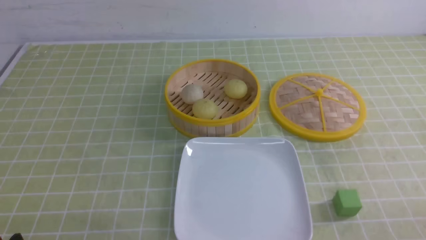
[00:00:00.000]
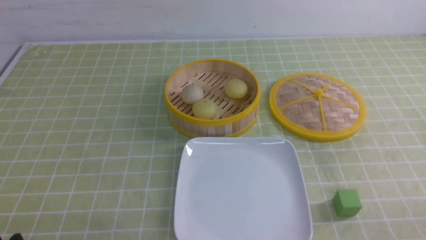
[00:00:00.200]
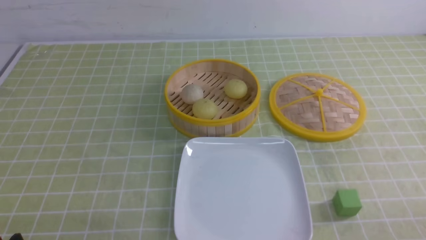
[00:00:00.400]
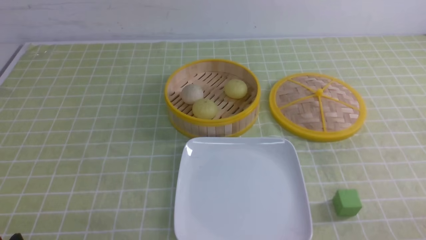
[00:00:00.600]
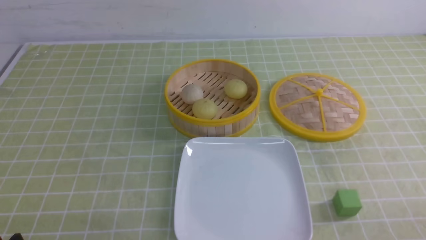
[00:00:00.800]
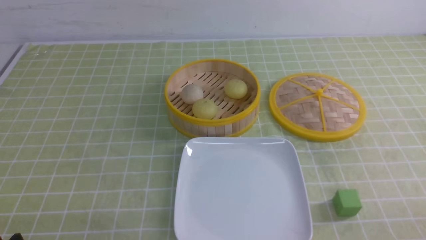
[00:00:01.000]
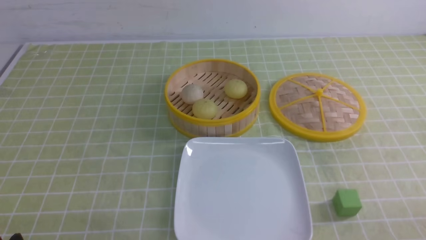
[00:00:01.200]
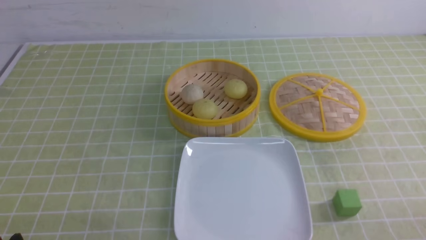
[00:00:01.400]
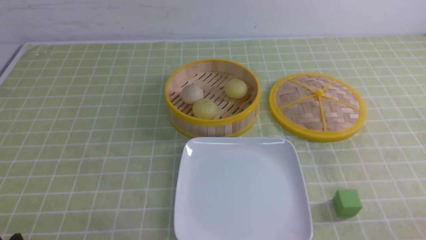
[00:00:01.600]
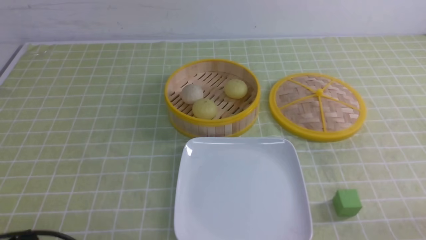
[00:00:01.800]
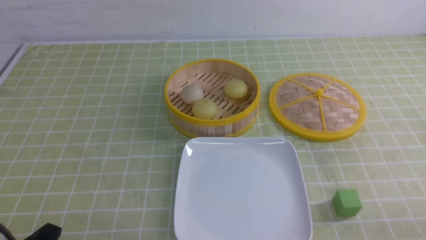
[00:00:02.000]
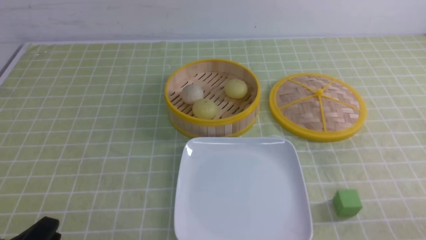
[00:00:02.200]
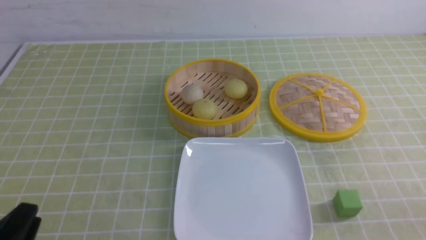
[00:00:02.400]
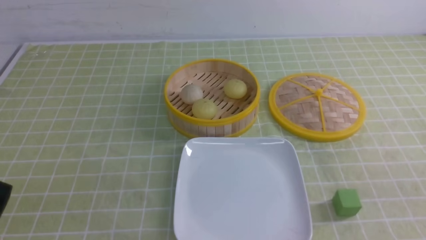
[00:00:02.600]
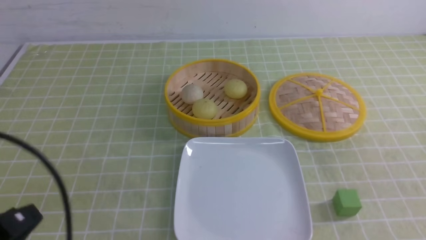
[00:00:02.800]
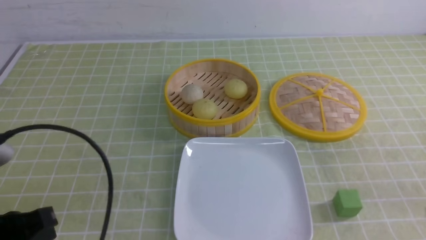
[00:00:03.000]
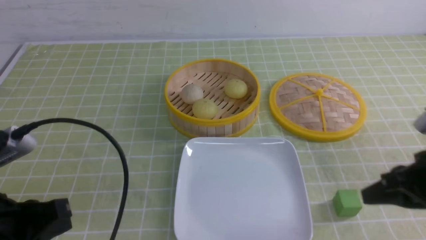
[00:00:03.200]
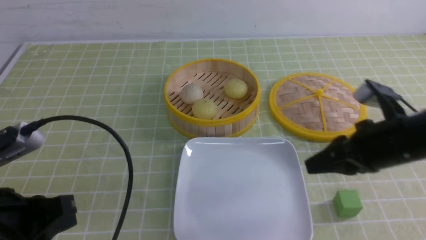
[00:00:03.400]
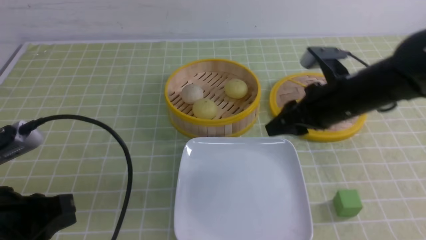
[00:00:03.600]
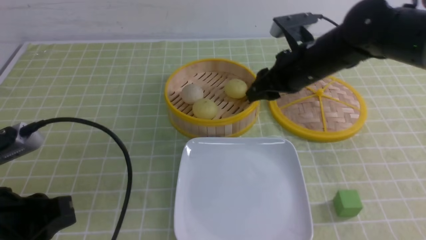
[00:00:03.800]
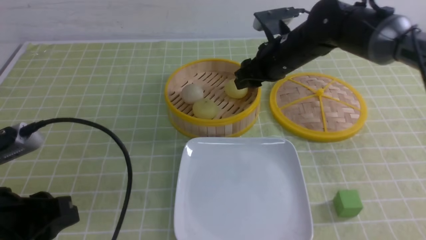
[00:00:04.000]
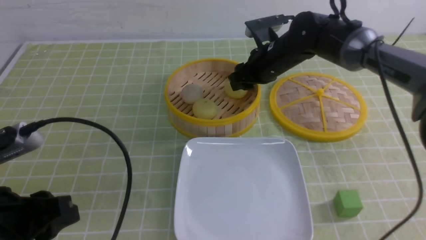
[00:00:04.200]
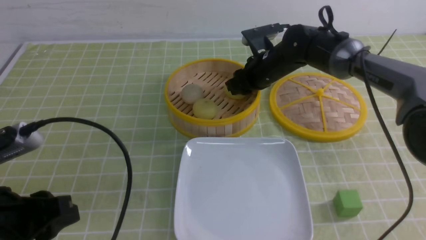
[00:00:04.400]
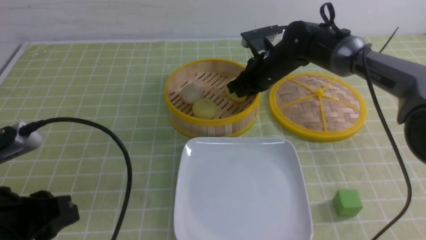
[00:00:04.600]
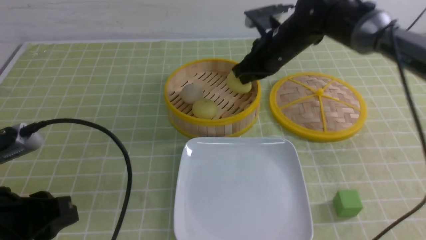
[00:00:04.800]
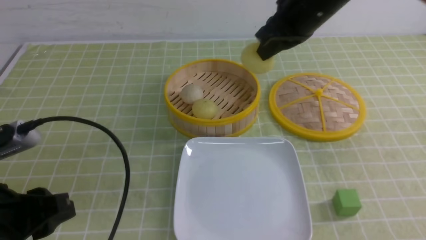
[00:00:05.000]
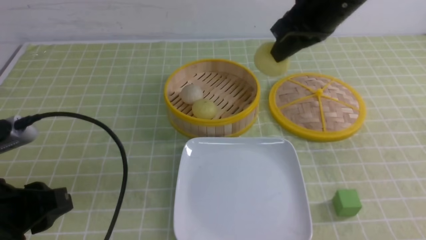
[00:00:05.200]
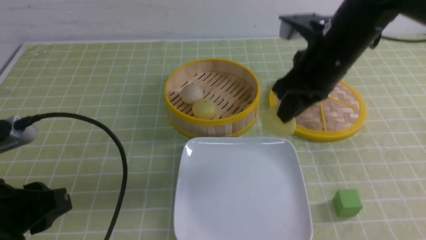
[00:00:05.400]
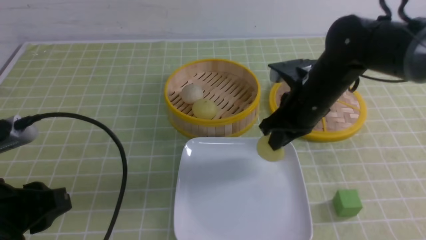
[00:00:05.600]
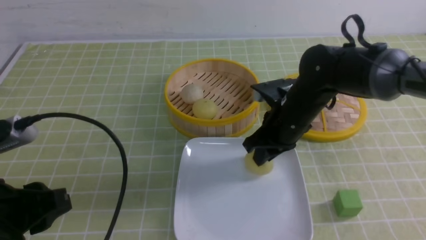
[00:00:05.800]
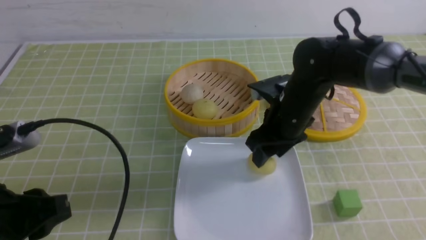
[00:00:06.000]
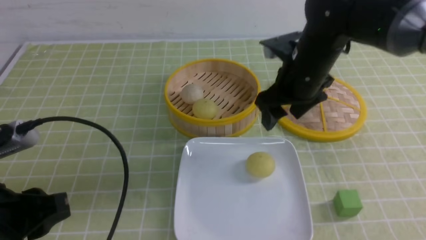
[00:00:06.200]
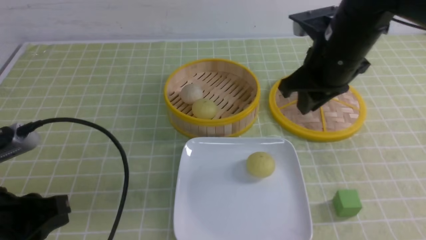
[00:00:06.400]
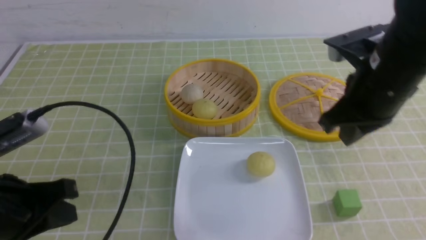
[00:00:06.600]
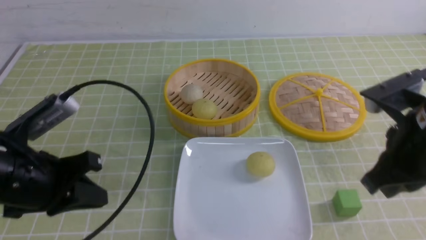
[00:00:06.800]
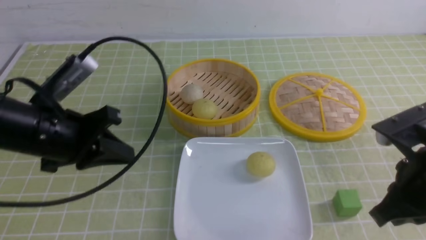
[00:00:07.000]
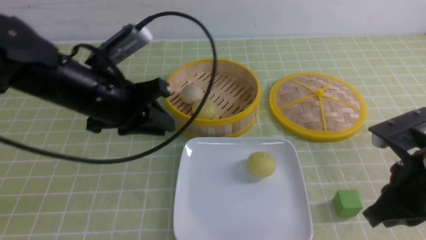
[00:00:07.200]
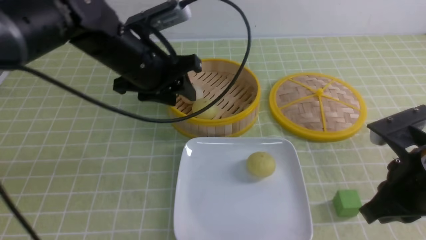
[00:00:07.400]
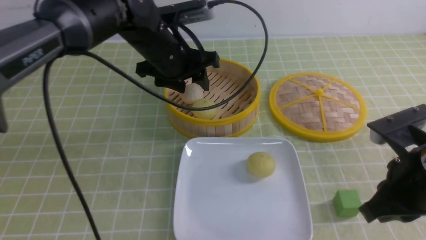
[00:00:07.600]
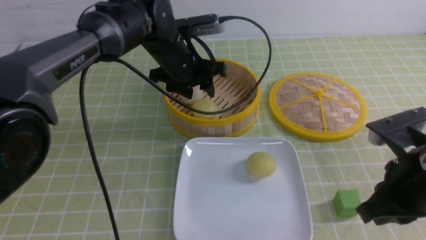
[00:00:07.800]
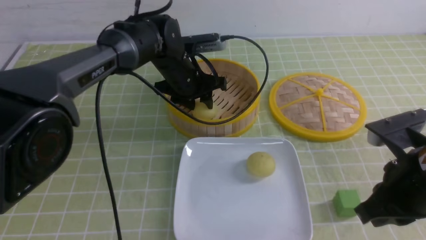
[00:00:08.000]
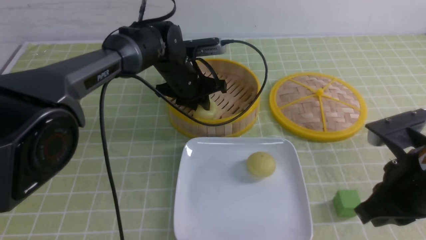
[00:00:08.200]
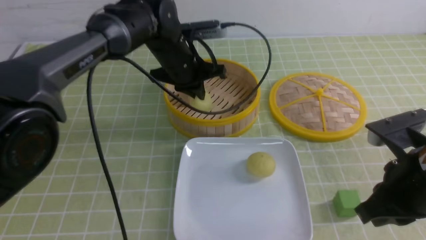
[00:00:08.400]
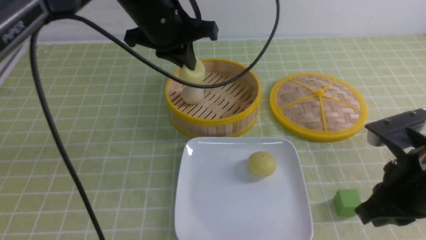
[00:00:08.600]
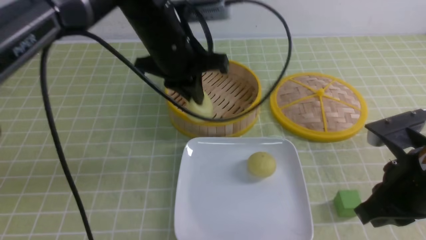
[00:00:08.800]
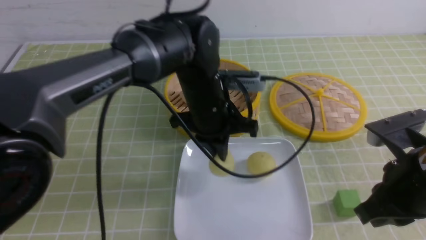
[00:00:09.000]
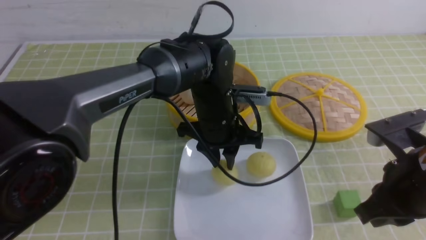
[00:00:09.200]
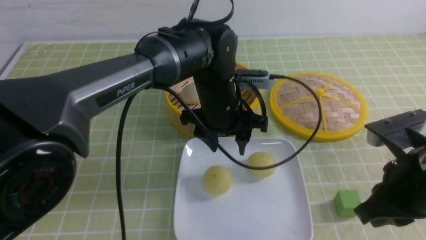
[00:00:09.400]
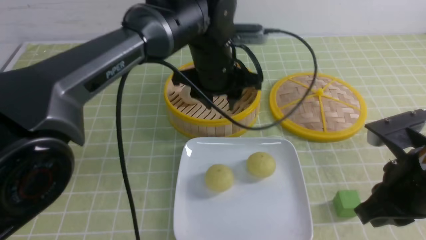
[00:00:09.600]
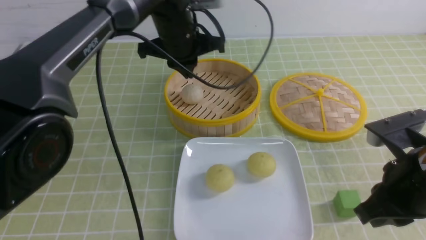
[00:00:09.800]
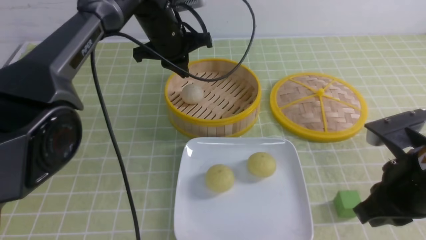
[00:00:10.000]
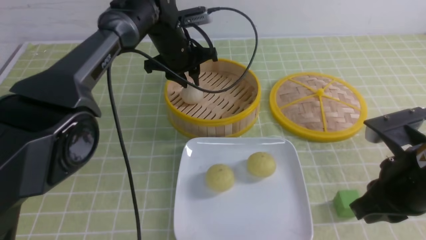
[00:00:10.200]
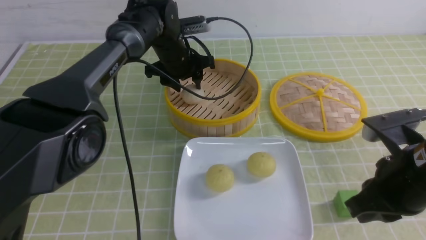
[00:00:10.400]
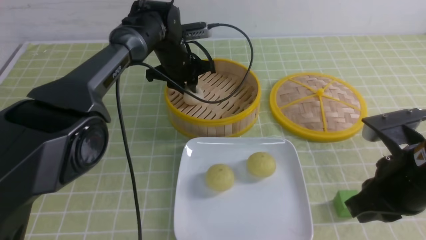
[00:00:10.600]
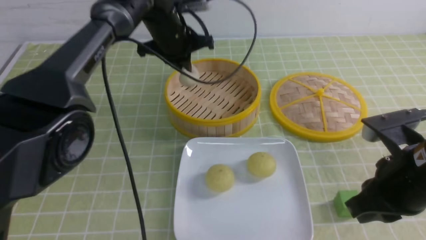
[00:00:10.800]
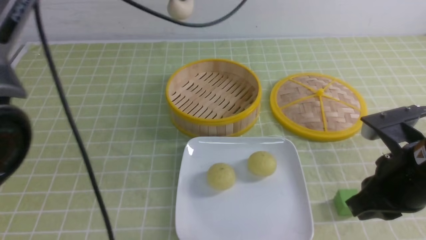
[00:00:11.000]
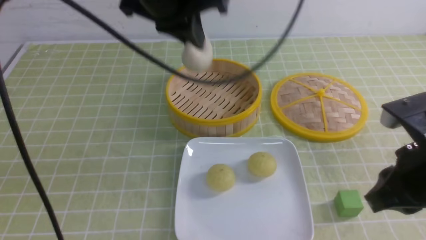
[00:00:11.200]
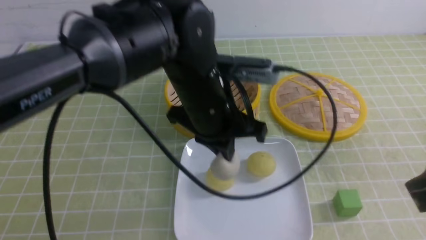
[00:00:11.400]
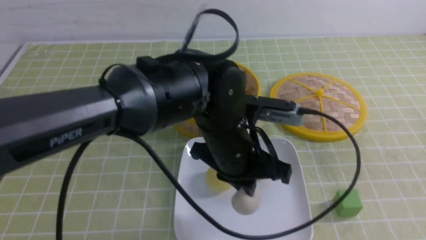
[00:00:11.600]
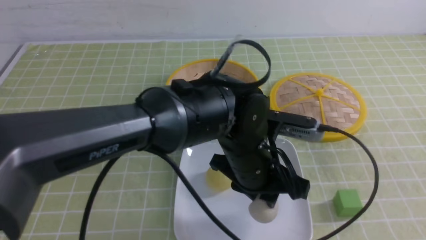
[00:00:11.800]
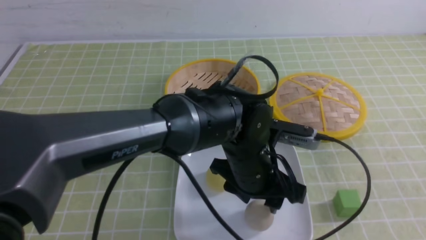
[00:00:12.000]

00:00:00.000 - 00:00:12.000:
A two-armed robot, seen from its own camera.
Step, 00:00:00.000 - 00:00:04.600: use the right arm to grab the steamed stuffed bun that is closest to it.
Step, 00:00:04.800 - 00:00:06.000: use the right arm to put the steamed stuffed bun into the plate.
Step, 00:00:06.200 - 00:00:08.200: use the left arm to grab the steamed stuffed bun that is closest to it.
Step, 00:00:08.400 - 00:00:09.200: use the left arm to put the steamed stuffed bun into the plate.
Step, 00:00:09.400 - 00:00:10.600: use the left arm to grab the steamed stuffed bun that is closest to it.
00:00:01.600 - 00:00:03.000: The left gripper moves upward, approximately 10 cm, and closes up.
00:00:03.000 - 00:00:04.400: The left gripper opens, while the right gripper is displaced forward and to the left by about 40 cm, and opens its fingers.
00:00:04.400 - 00:00:06.000: The right gripper is displaced backward by about 15 cm, goes upward and returns, roughly 15 cm each way, and opens its fingers.
00:00:06.000 - 00:00:07.600: The left gripper moves forward and to the right, about 30 cm, and closes, then reopens. The right gripper goes approximately 20 cm backward and to the right, and closes up.
00:00:07.600 - 00:00:09.000: The left gripper swings up and down, about 10 cm each way, with 2 reversals, and closes up.
00:00:09.000 - 00:00:10.400: The left gripper travels forward by approximately 15 cm, and opens.
00:00:10.400 - 00:00:12.000: The right gripper travels backward, upward and to the right by some 20 cm, while the left gripper shifts roughly 25 cm backward and to the right, and closes, then opens again.

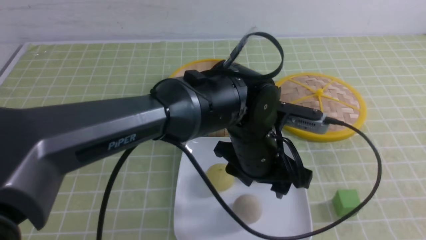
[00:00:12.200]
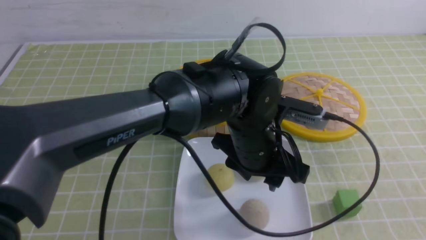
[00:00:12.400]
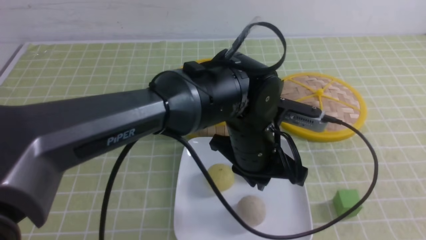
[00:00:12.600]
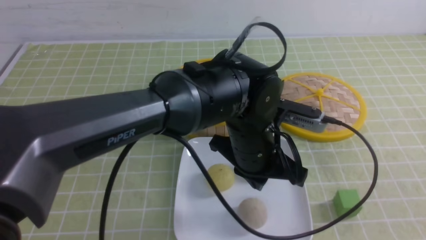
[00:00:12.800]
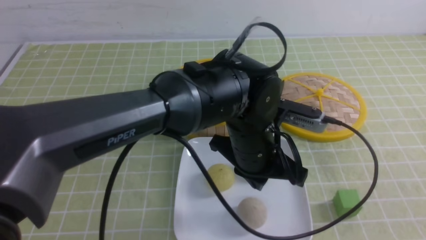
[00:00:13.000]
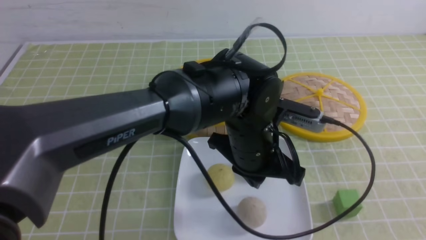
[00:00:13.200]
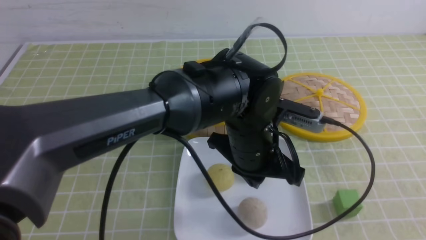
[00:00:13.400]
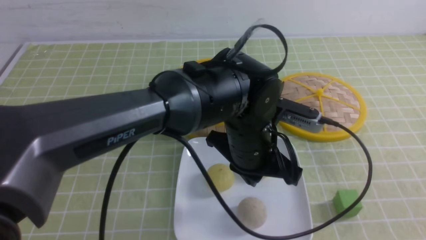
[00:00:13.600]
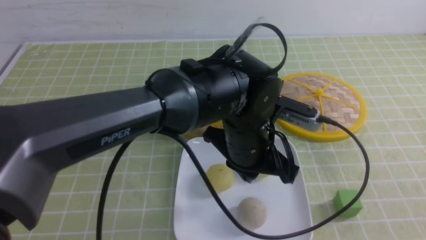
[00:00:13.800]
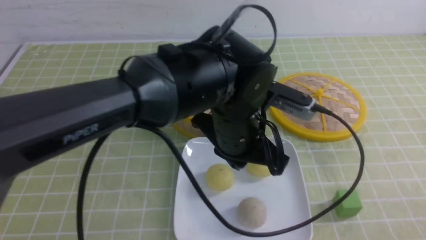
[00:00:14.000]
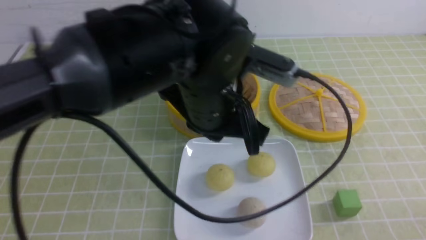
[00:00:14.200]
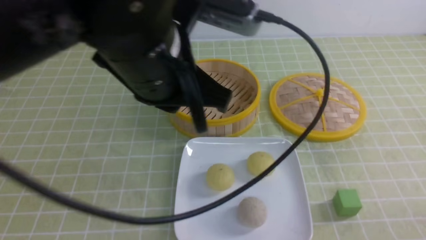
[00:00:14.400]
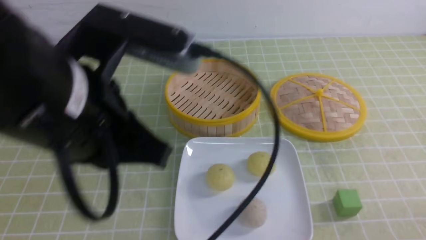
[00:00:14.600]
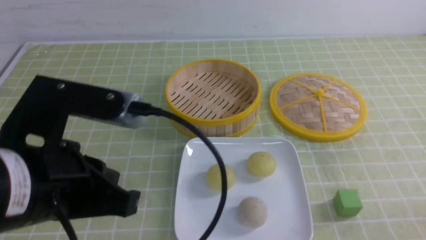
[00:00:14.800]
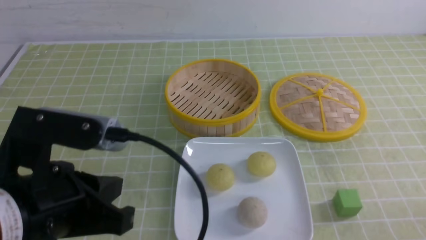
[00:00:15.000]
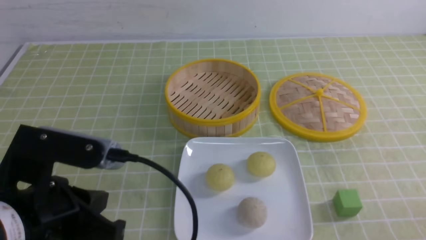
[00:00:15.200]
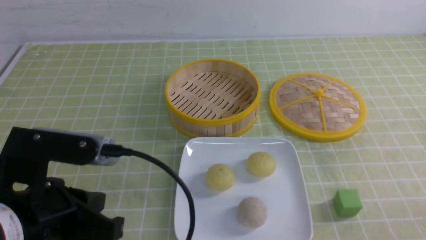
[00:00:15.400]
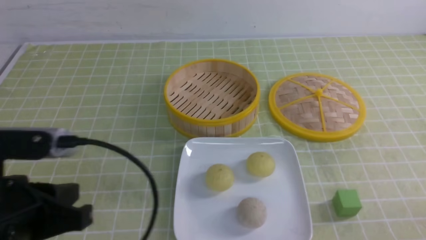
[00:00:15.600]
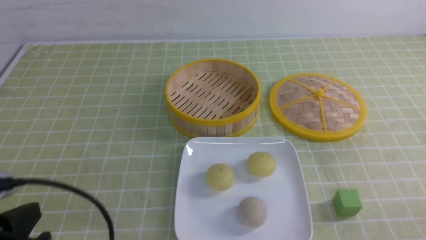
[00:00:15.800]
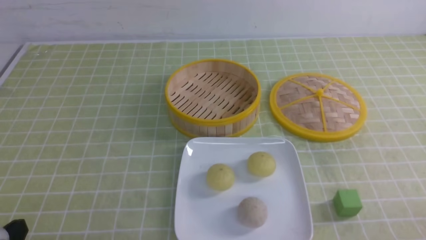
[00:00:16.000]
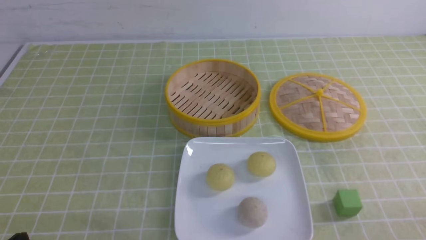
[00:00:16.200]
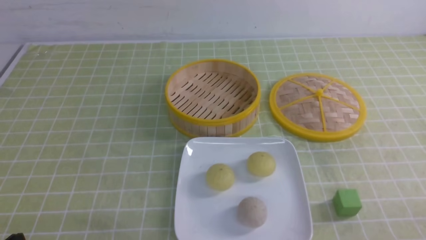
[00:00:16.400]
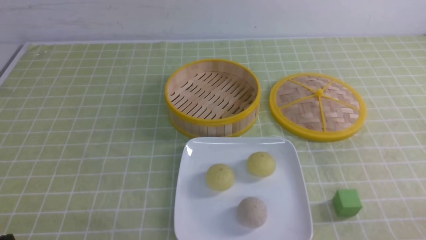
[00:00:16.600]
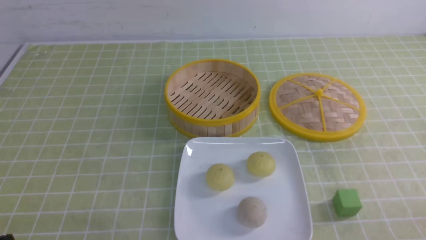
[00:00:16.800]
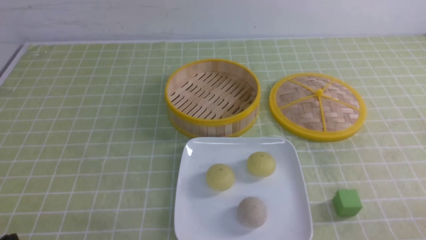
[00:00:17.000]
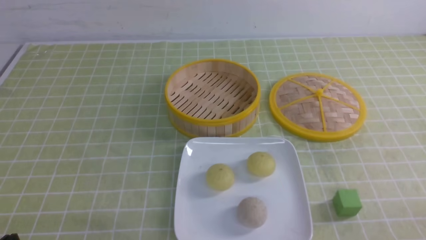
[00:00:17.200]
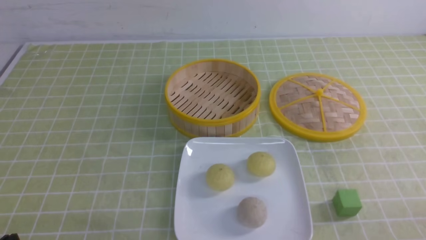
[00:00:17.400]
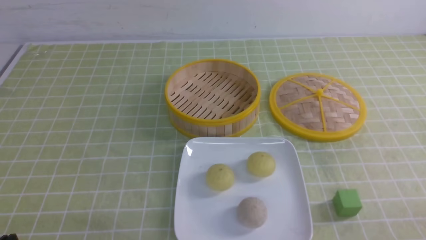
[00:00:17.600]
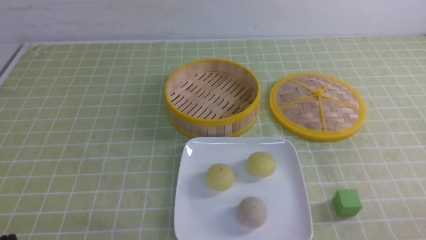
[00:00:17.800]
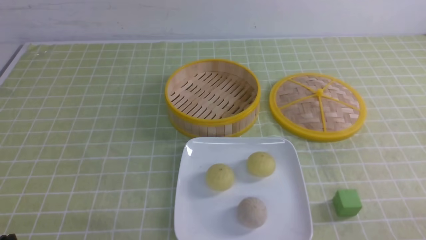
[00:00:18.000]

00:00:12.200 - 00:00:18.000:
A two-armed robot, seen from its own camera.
00:00:12.200 - 00:00:13.600: The right gripper travels downward by roughly 5 cm. Meanwhile the left gripper closes up.
00:00:13.600 - 00:00:15.000: The right gripper is displaced downward by about 10 cm. The left gripper goes some 25 cm to the left and backward.
00:00:15.000 - 00:00:16.600: The left gripper heads downward, to the left and backward, covering approximately 20 cm.
00:00:16.600 - 00:00:18.000: Both grippers stay about where they are.
